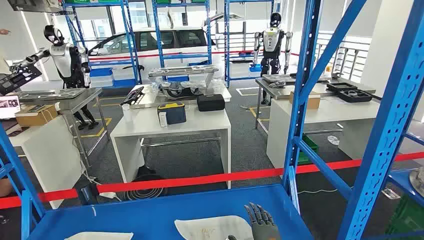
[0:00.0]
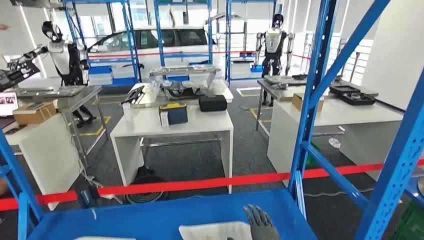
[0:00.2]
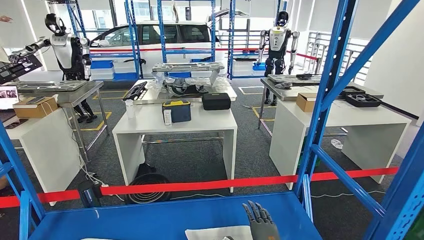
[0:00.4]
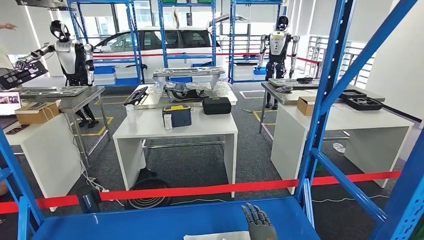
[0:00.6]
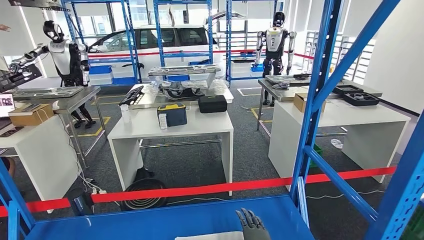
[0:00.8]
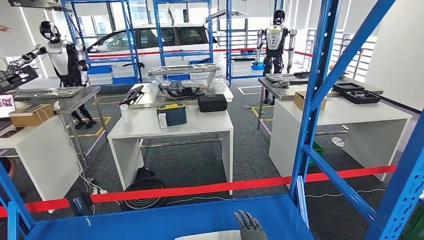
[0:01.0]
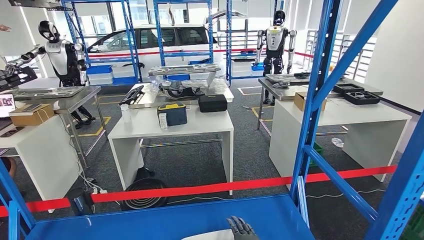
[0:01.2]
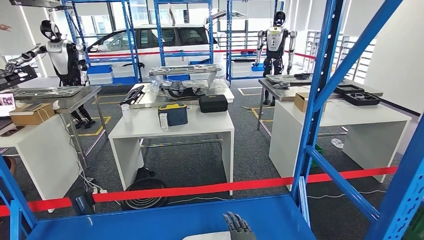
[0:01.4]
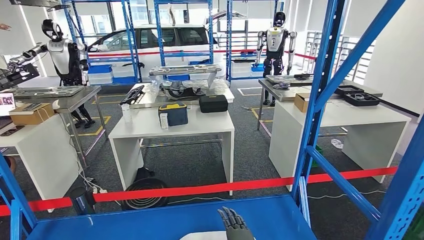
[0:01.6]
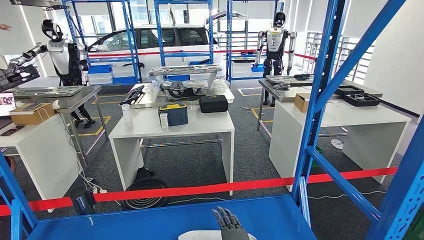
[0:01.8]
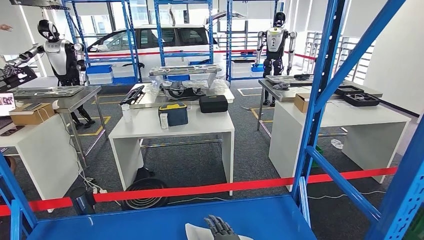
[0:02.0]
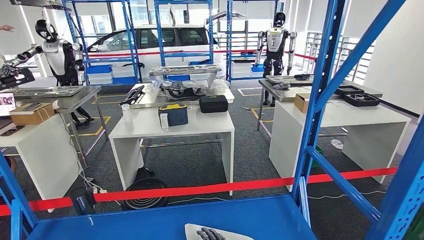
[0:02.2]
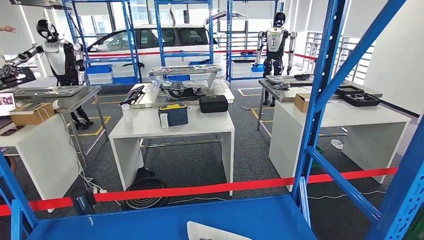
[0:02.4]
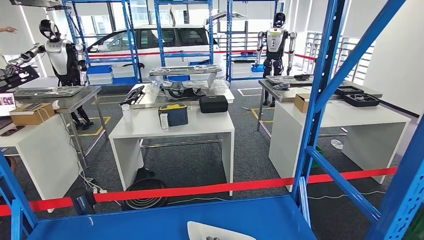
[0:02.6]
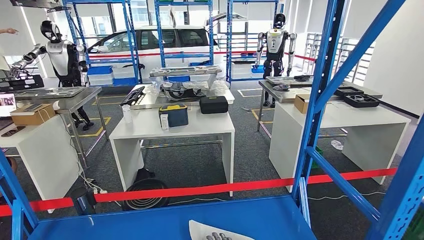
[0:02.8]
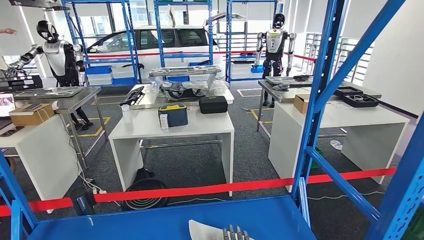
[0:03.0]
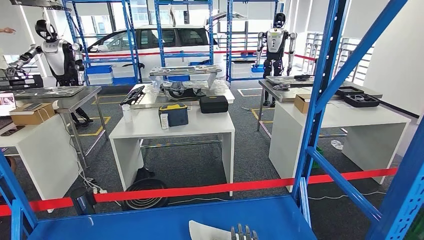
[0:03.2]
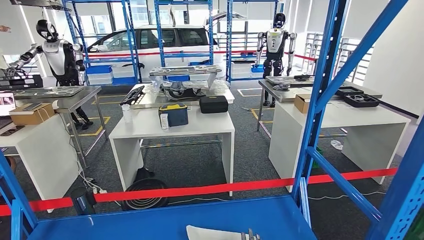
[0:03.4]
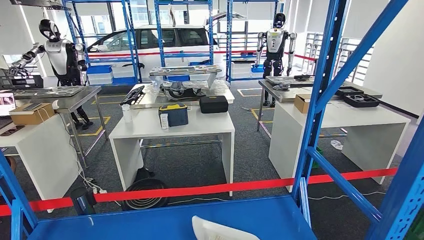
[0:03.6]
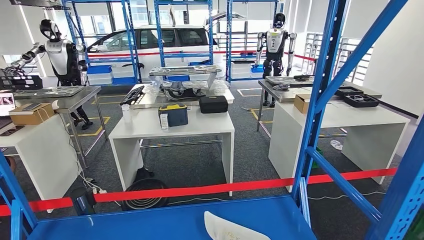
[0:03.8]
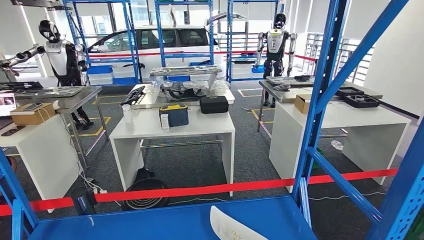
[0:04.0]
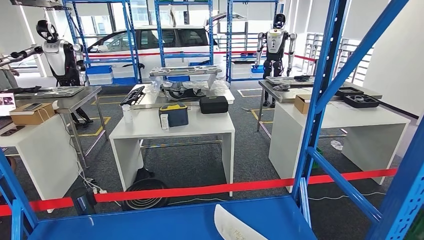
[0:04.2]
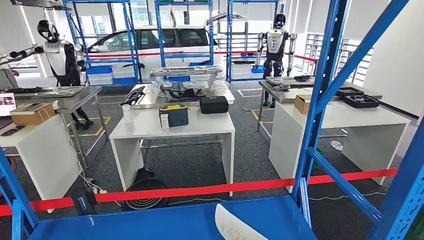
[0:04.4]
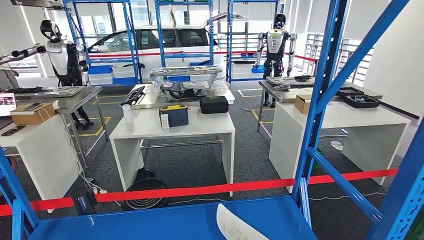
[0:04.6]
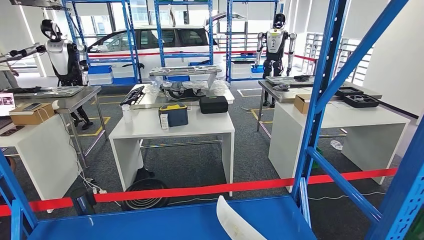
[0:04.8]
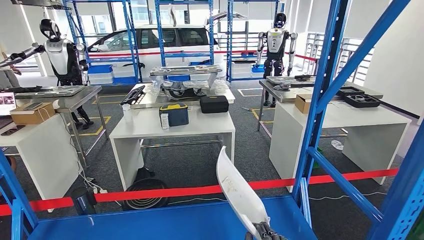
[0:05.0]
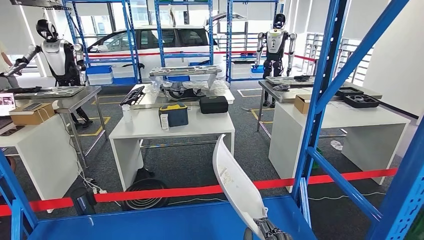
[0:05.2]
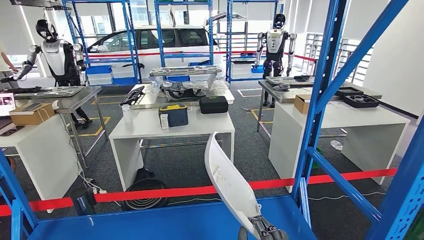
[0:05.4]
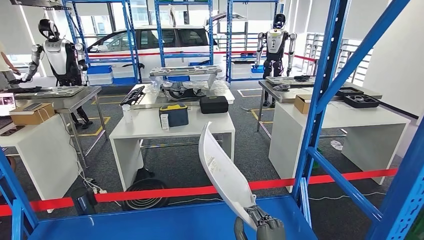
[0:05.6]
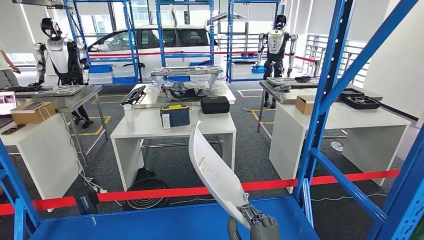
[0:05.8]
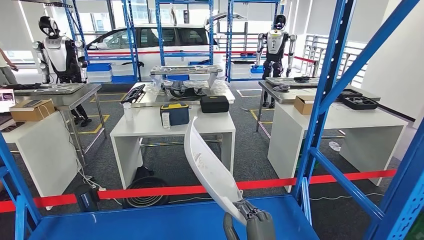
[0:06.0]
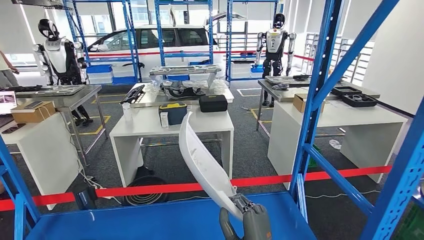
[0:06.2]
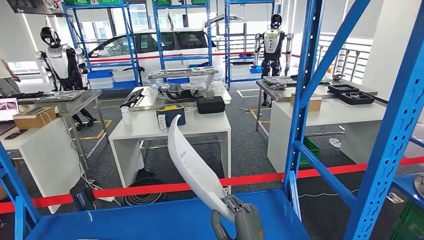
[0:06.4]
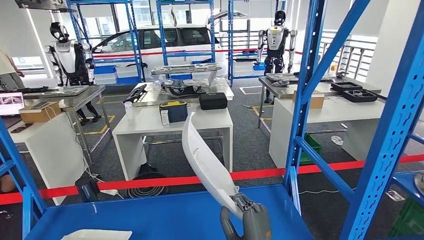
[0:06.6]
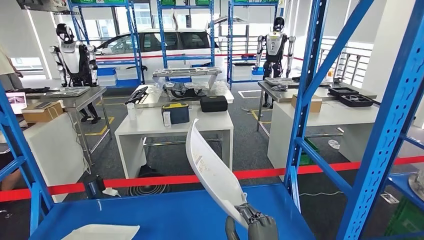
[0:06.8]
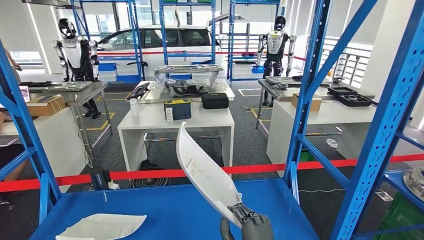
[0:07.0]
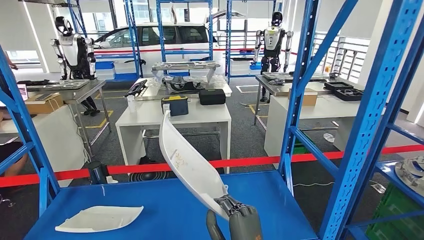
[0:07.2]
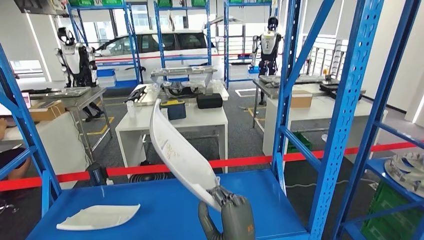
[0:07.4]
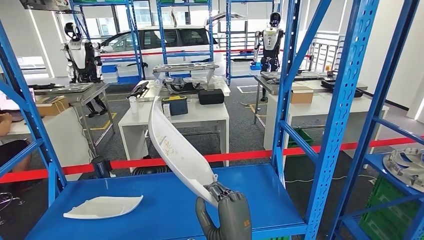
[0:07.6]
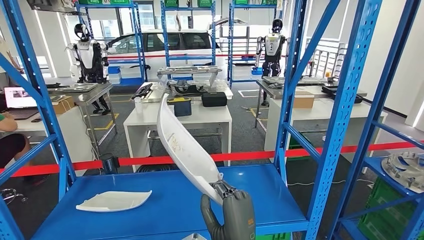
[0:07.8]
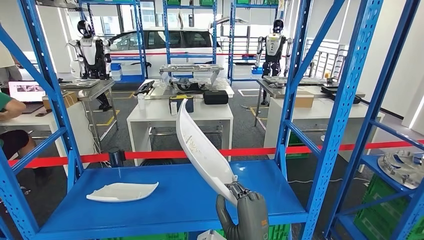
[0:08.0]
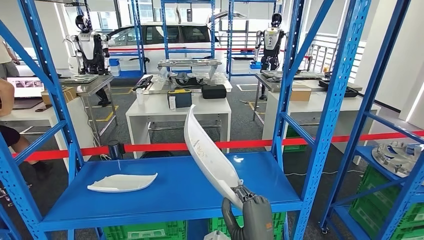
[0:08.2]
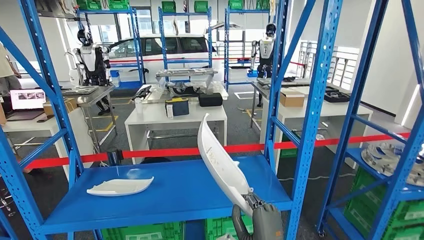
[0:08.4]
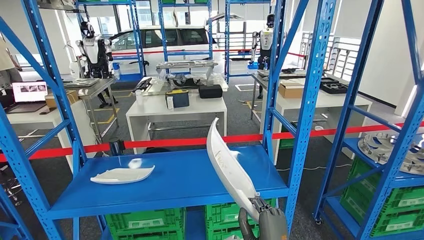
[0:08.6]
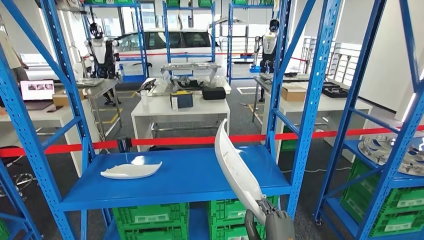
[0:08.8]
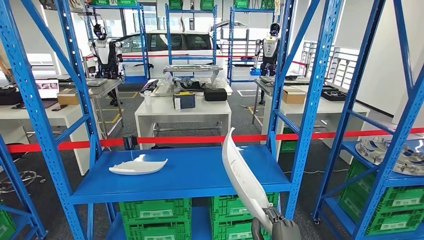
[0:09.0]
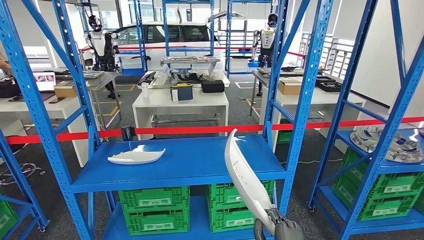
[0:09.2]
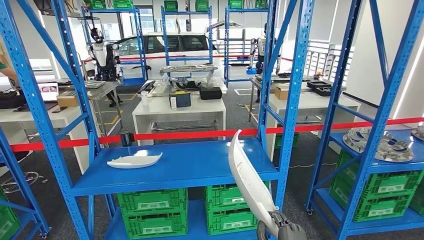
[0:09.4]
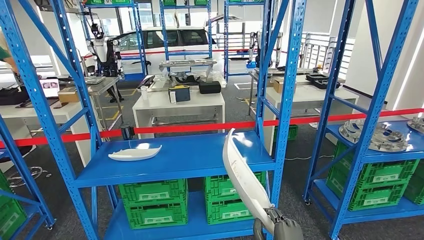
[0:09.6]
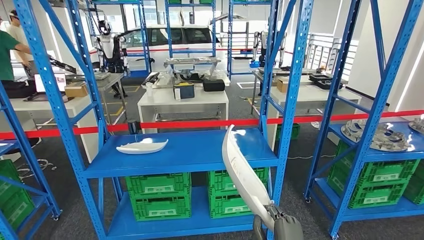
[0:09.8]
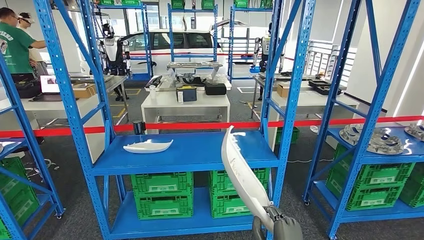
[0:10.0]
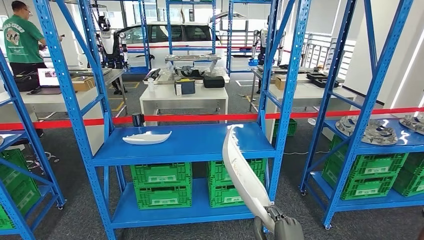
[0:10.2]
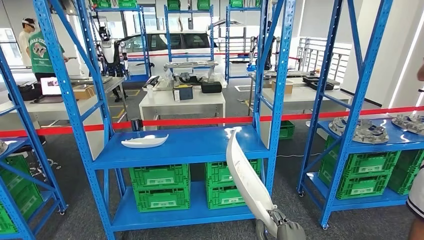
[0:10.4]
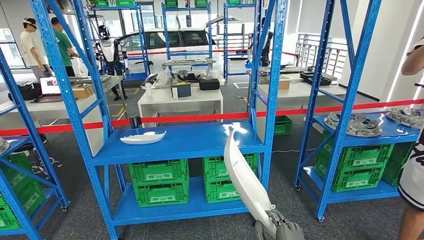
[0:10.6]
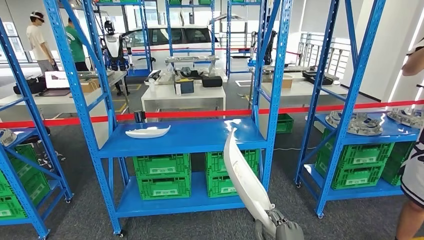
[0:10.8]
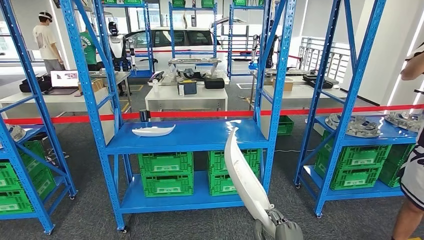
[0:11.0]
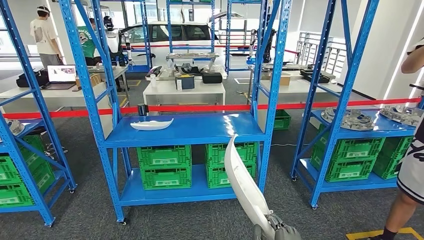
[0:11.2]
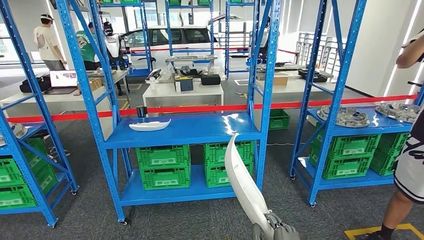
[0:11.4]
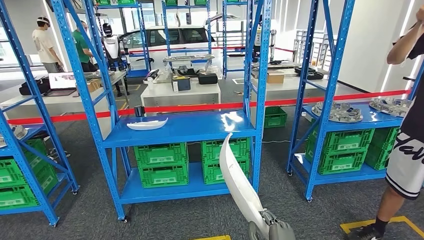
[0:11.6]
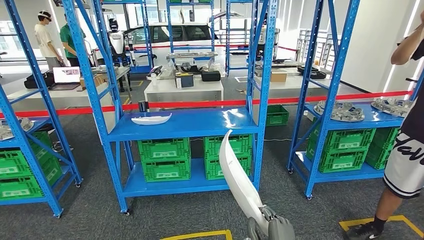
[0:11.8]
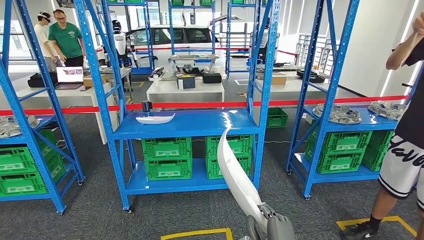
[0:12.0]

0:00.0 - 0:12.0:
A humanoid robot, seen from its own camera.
Step, 0:00.0 - 0:07.8: Pick up the small component from the shelf.
0:03.0 - 0:04.4: The right hand ends up roughly 5 cm from where it was.

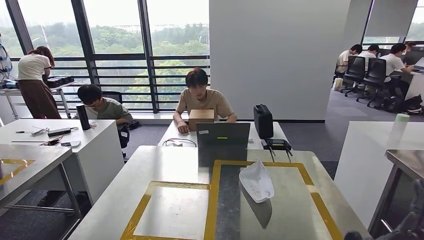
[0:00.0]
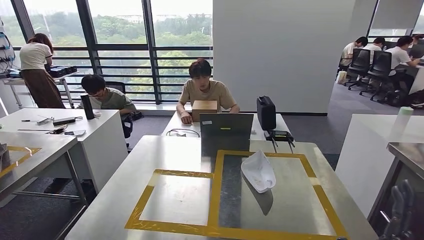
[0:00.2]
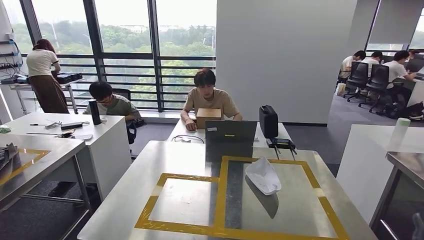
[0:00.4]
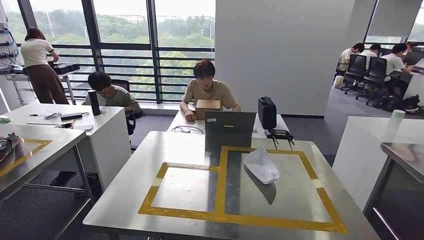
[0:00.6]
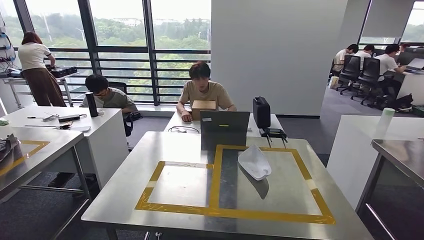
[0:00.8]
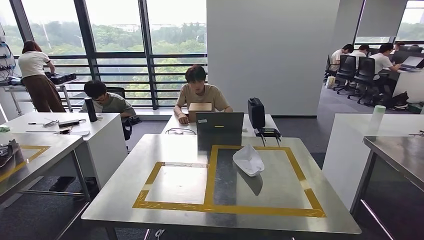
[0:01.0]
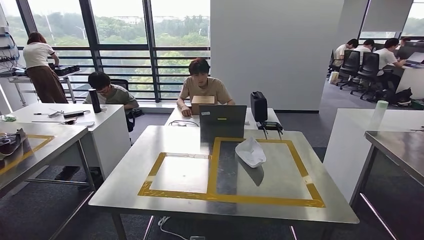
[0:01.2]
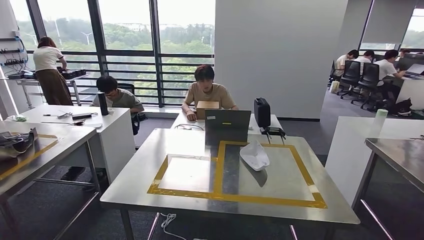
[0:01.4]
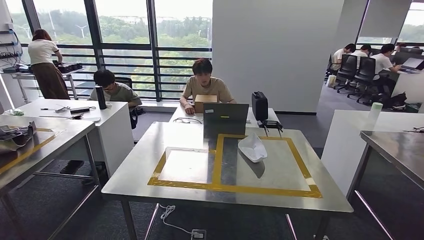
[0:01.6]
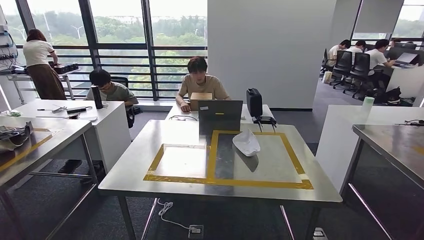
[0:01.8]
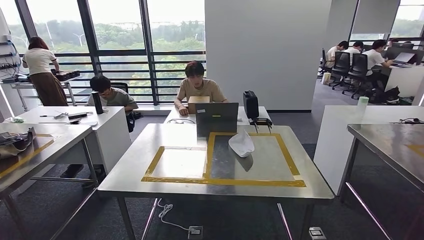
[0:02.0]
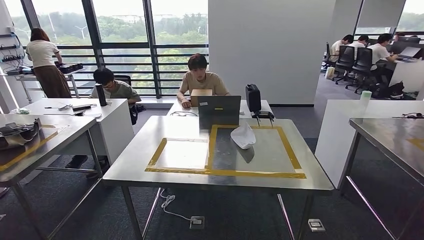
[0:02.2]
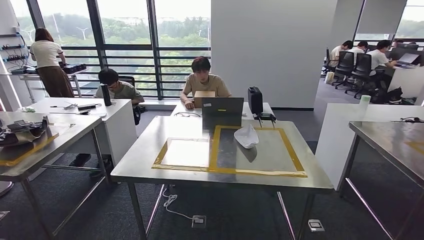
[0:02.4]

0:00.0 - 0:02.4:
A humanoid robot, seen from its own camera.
Step, 0:00.4 - 0:02.4: Return to the initial position at the workbench.

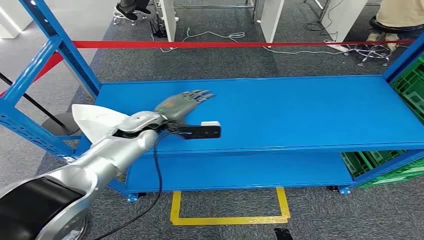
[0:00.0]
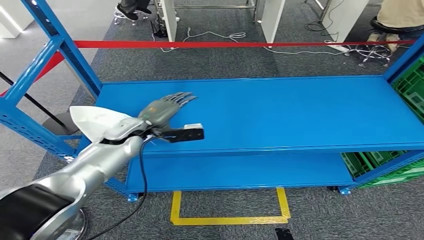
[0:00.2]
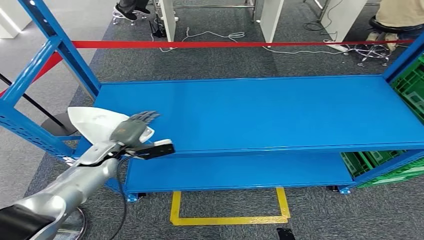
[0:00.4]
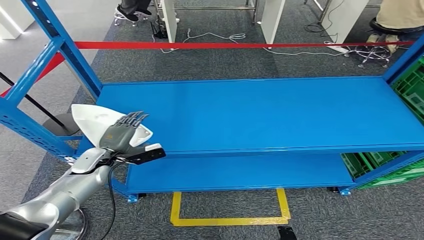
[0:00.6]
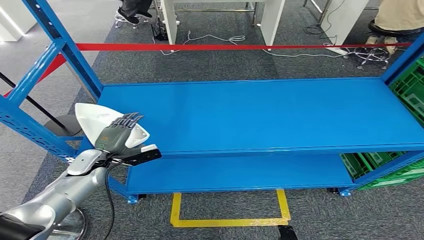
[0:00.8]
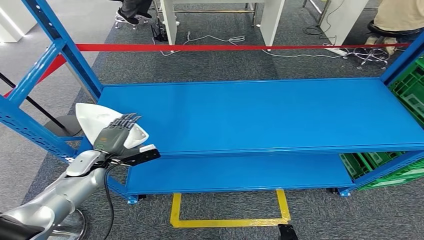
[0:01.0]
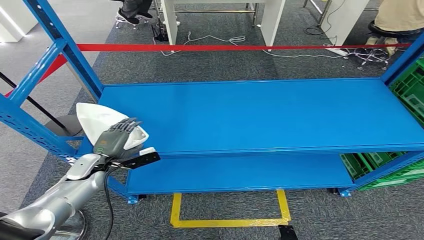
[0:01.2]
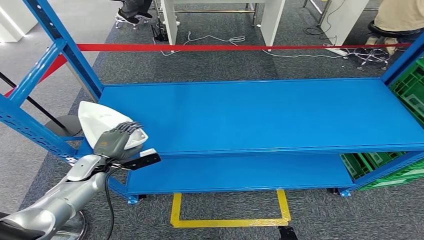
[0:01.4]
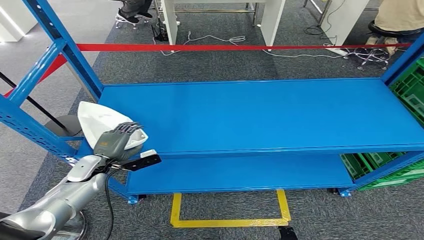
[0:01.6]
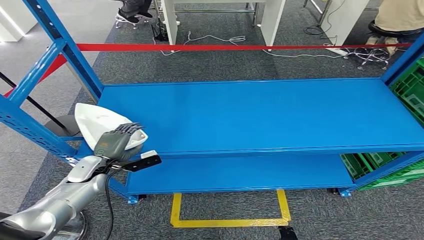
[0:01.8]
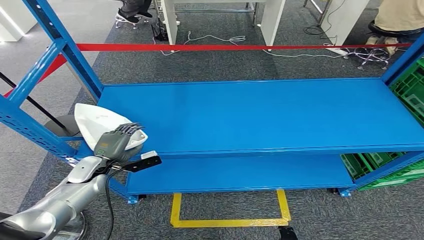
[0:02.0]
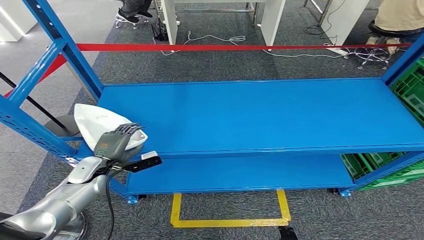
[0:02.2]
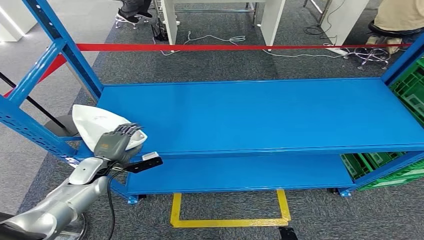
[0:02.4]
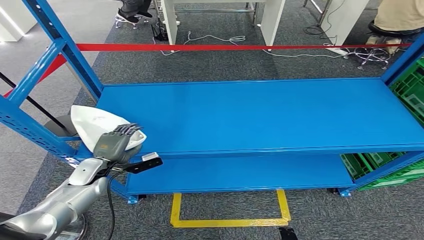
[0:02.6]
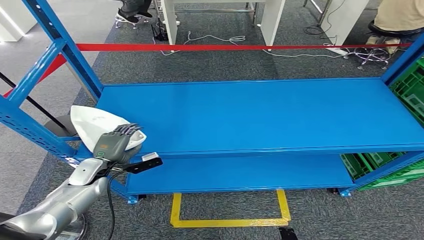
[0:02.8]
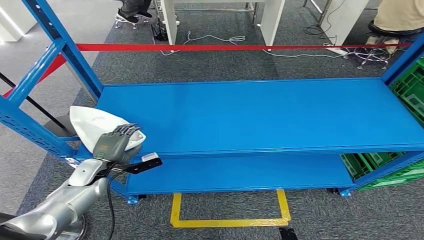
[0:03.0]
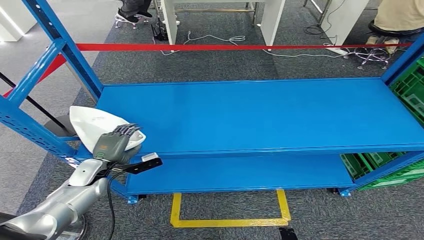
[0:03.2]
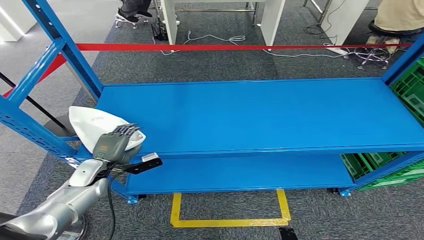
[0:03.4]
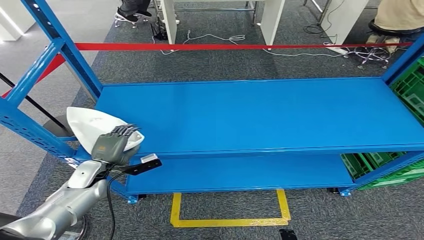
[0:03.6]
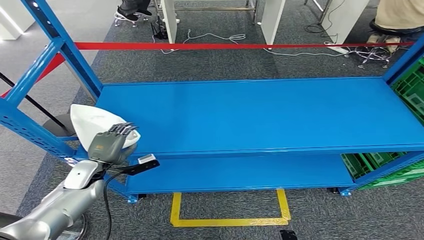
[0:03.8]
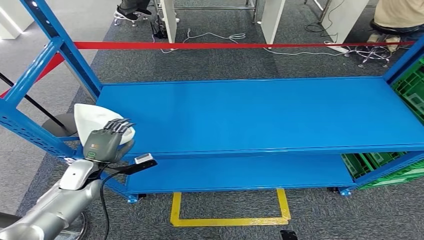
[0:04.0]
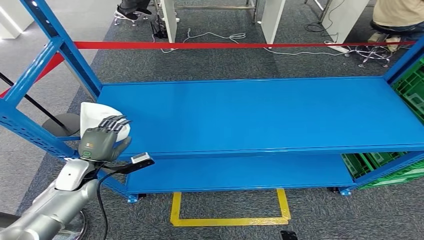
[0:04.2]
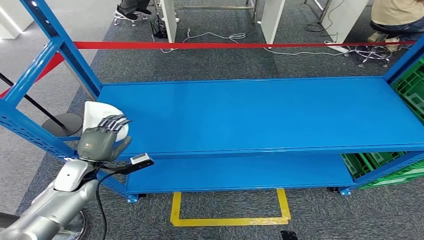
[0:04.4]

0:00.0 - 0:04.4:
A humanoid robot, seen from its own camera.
0:01.4 - 0:03.0: There are only small adjustments of the hands.
0:03.0 - 0:04.4: The hands move only a little.
